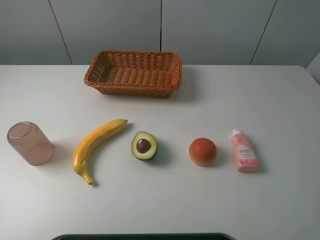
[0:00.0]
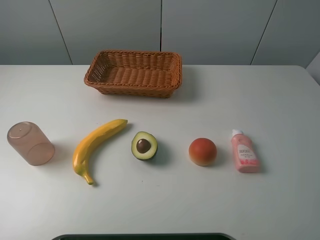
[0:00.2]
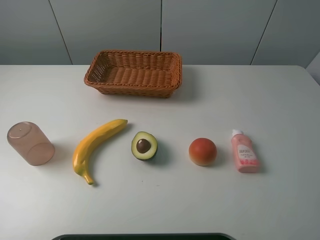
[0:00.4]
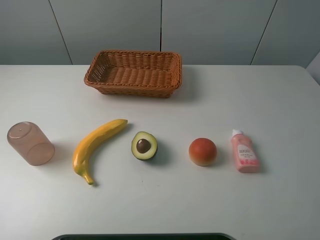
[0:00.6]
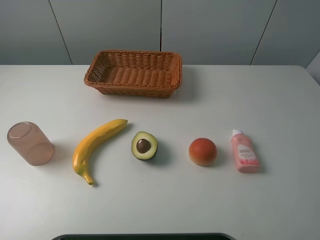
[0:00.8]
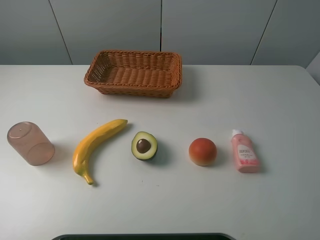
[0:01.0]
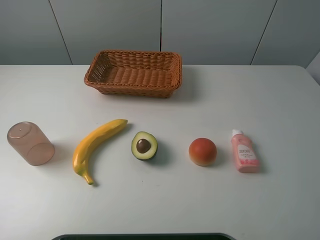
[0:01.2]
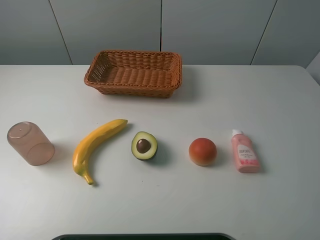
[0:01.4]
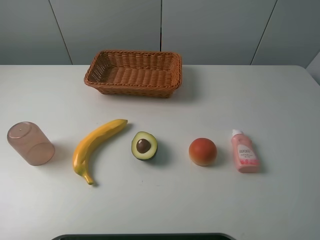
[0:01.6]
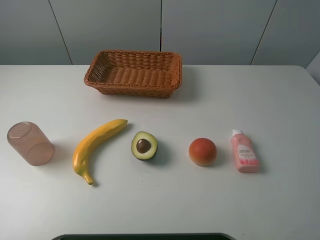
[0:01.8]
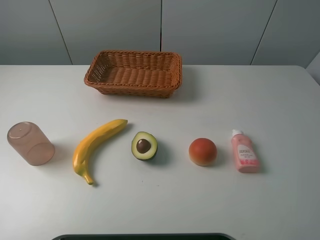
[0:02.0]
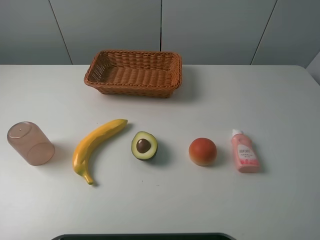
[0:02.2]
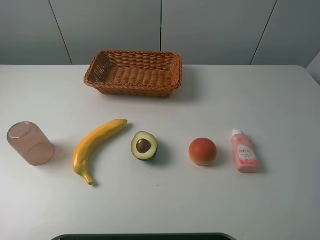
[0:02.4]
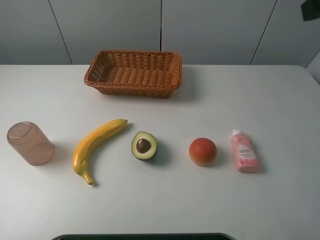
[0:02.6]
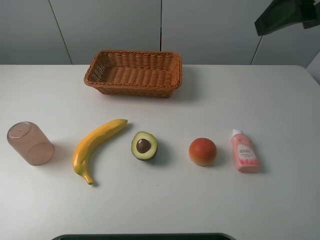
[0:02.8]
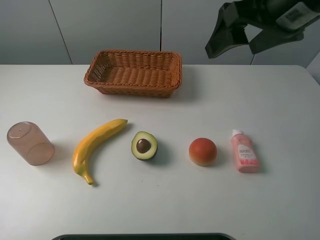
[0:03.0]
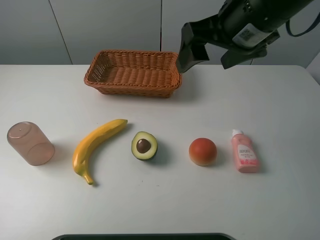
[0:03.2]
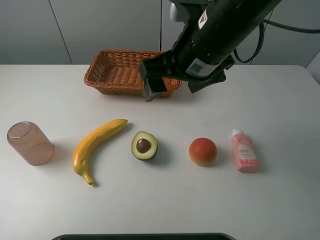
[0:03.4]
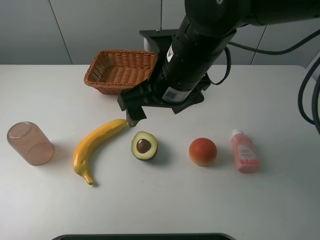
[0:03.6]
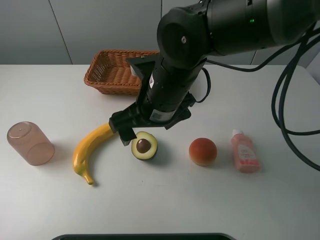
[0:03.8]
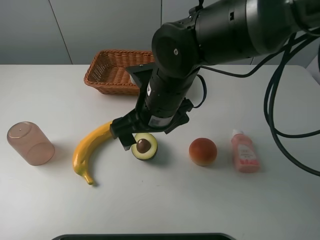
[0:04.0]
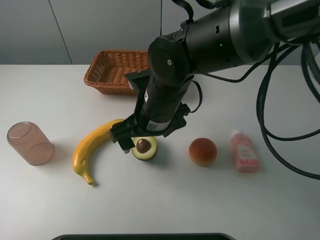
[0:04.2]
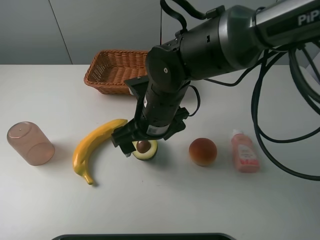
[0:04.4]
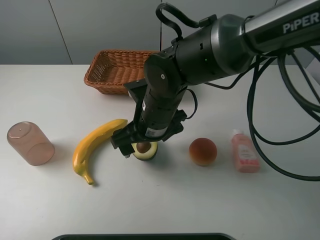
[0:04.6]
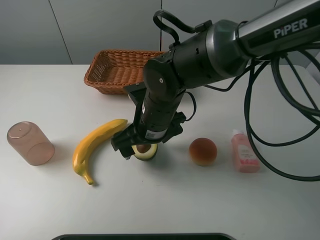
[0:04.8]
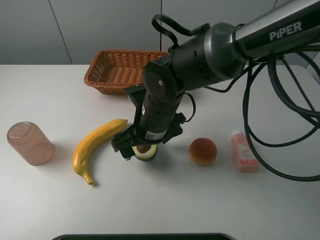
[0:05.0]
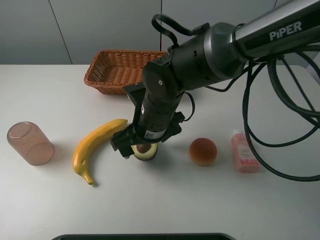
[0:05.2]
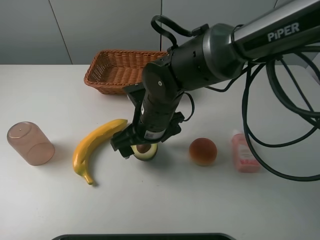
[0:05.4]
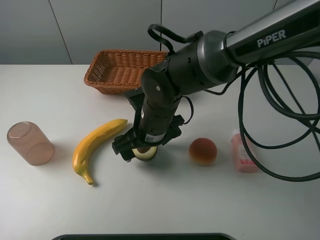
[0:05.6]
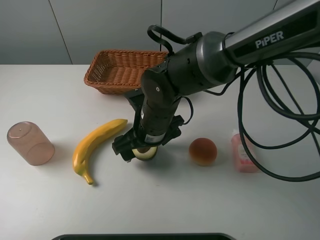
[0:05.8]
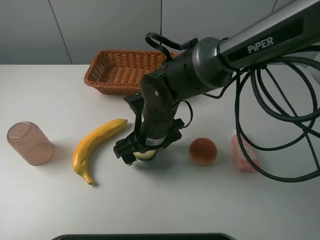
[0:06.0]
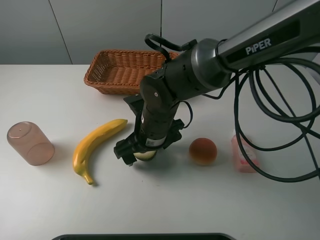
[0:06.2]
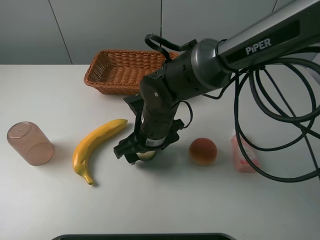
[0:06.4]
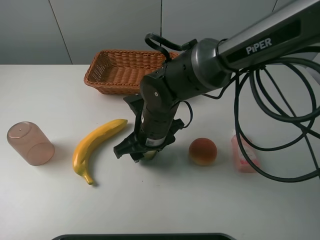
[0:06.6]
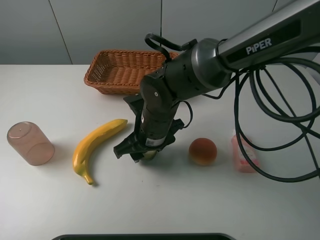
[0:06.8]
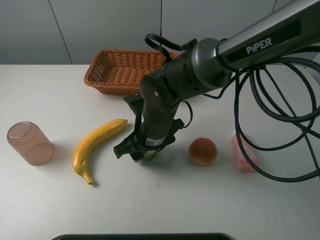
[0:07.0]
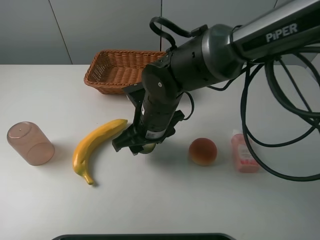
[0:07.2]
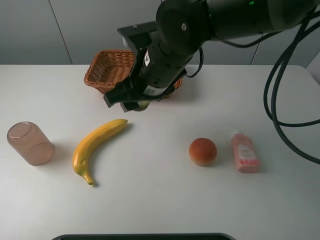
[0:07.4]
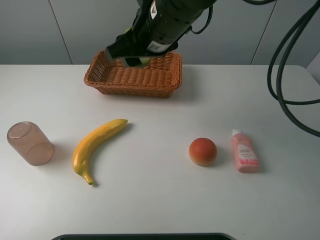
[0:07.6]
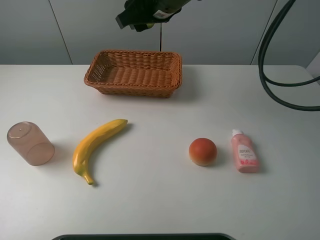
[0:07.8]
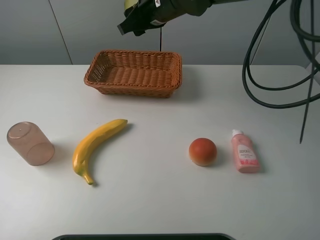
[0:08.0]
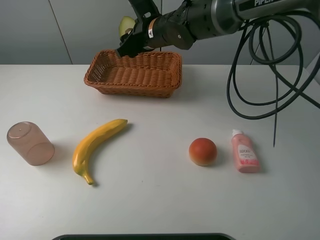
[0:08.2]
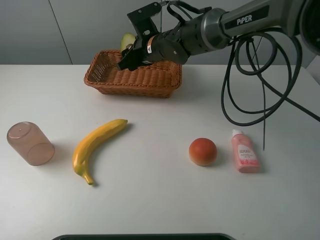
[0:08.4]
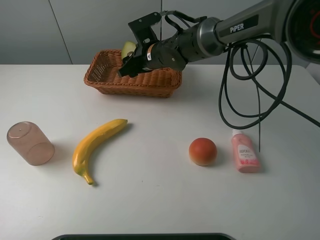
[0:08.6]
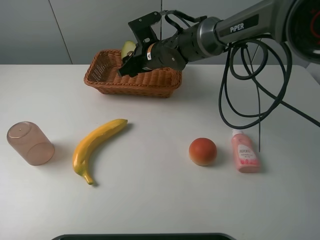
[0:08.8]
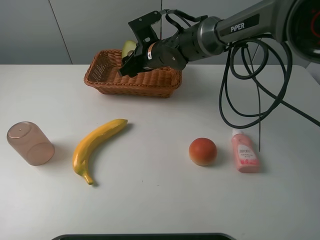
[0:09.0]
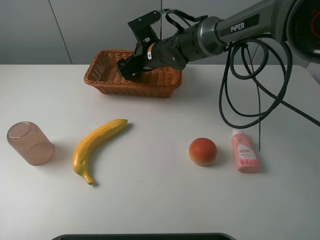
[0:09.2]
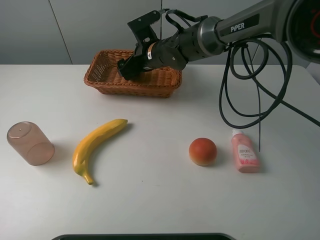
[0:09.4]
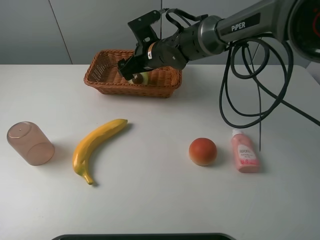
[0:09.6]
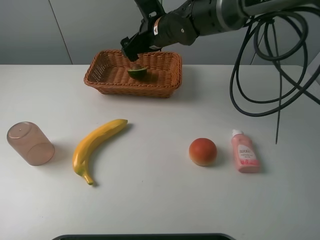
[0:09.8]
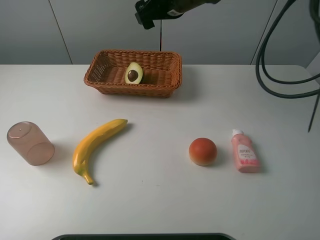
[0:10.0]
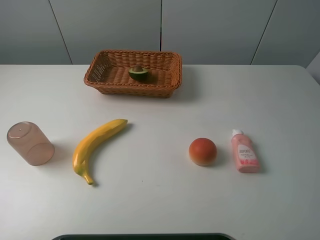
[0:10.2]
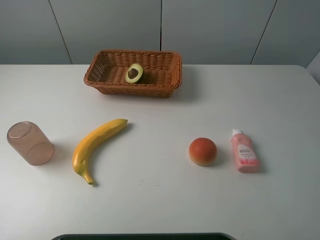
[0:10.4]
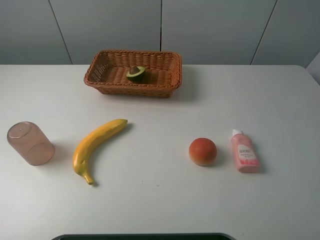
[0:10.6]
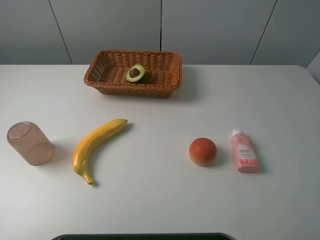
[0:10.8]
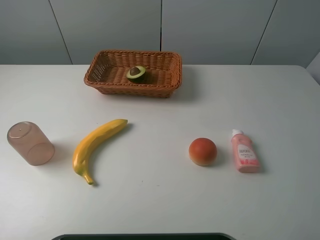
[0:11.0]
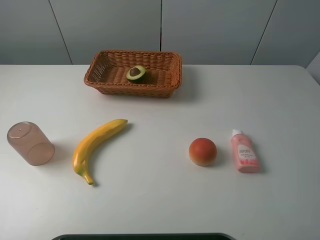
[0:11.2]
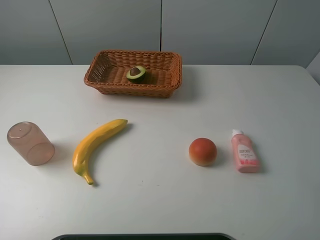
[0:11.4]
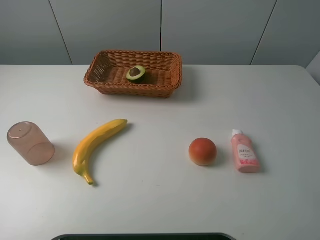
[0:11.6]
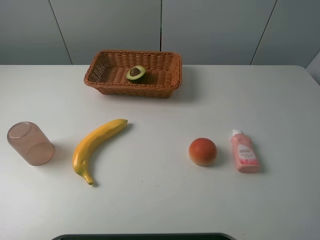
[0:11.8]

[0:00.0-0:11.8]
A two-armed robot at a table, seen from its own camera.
Task of the whole recording: randomly pick up an item from the table and put it in the basket.
Step, 0:00.0 to 0:06.6: Grasp the avocado with the right gripper.
Step, 0:06.8 to 0:09.8: Place the avocado into the basket with the right gripper.
0:00.0 to 0:01.4: Both grippers stay about where they are.
0:01.4 to 0:03.0: The right gripper moves forward and to the left, approximately 30 cm.
0:03.0 to 0:04.4: The right gripper travels downward and to the left by roughly 25 cm.
0:04.4 to 0:06.0: There are only small adjustments of the grippers.
0:06.0 to 0:07.4: The right gripper travels upward by approximately 15 cm, and closes its fingers.
0:07.4 to 0:08.8: The right gripper shifts roughly 20 cm forward and downward.
0:08.8 to 0:10.4: The right gripper heads upward and to the right, covering some 35 cm, and opens its fingers.

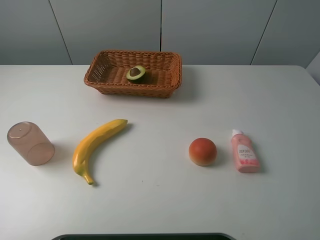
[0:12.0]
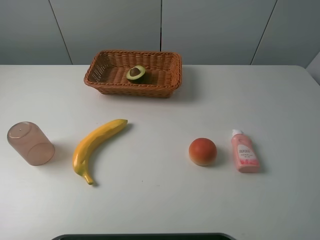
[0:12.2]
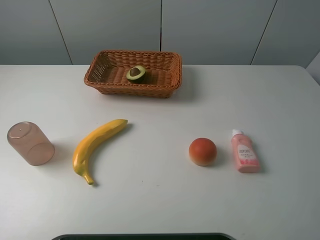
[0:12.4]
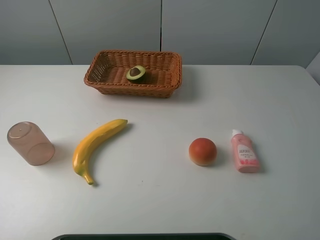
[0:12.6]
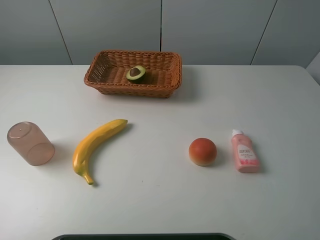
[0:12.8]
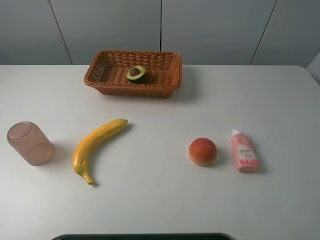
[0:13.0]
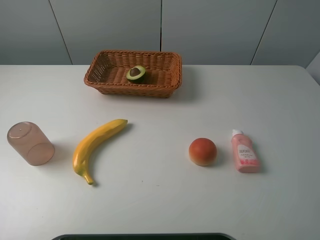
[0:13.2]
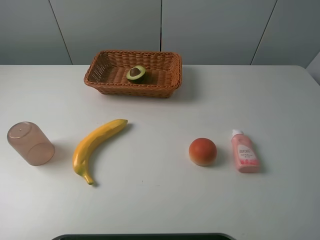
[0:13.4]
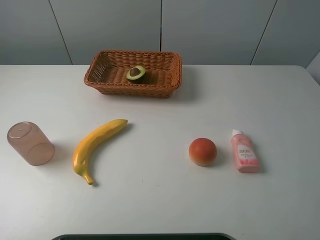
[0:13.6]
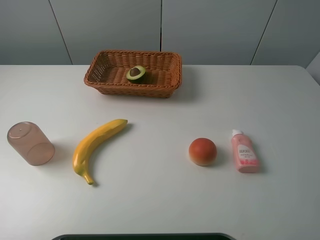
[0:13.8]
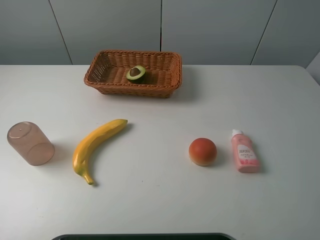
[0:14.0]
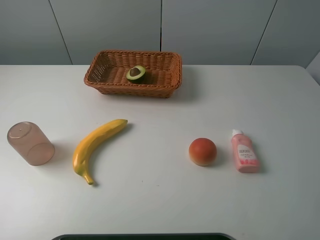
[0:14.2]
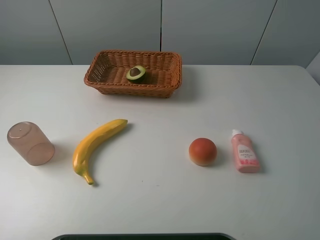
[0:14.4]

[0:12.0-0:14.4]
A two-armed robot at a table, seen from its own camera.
Task of the whole recording: randomly pick up an item from the table and put it in the basket.
0:13.2 to 0:14.4: Both grippers stay put.
